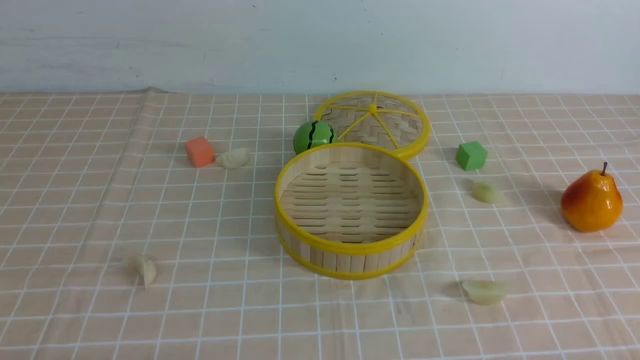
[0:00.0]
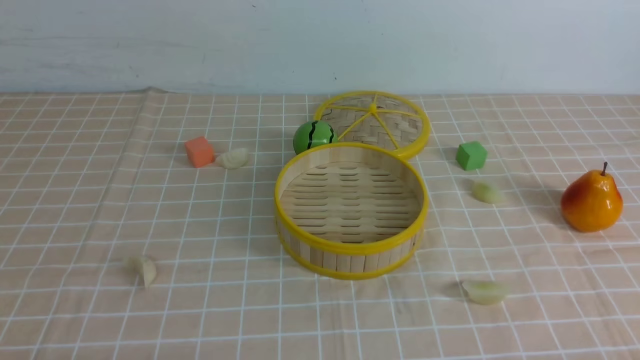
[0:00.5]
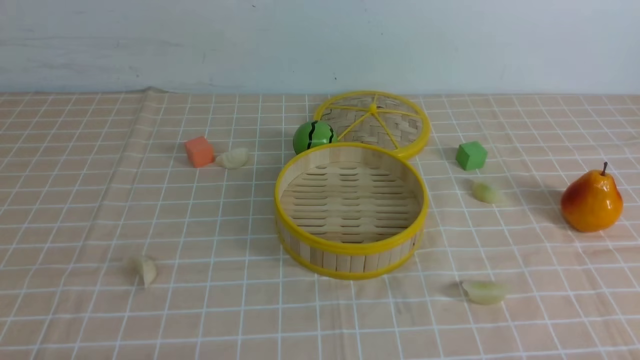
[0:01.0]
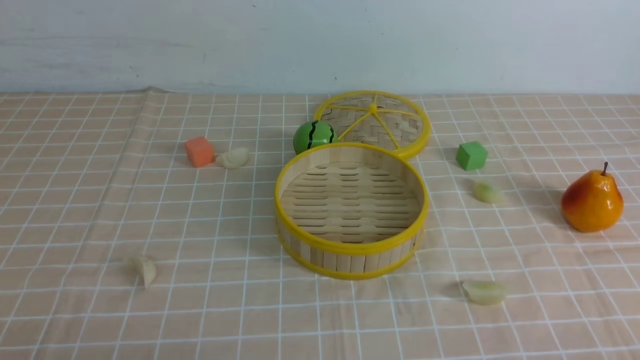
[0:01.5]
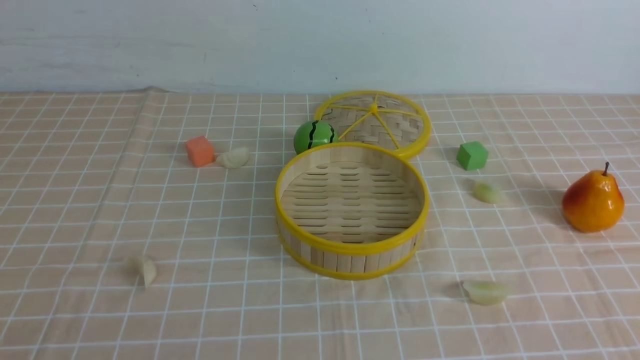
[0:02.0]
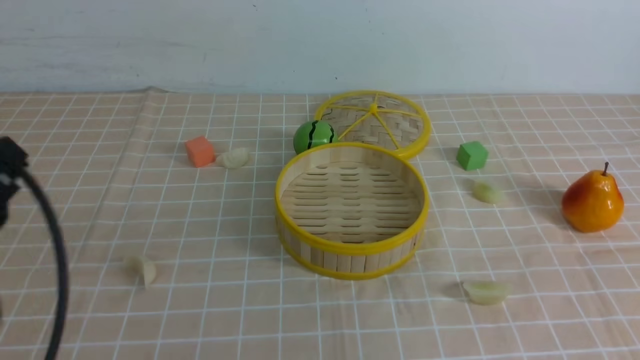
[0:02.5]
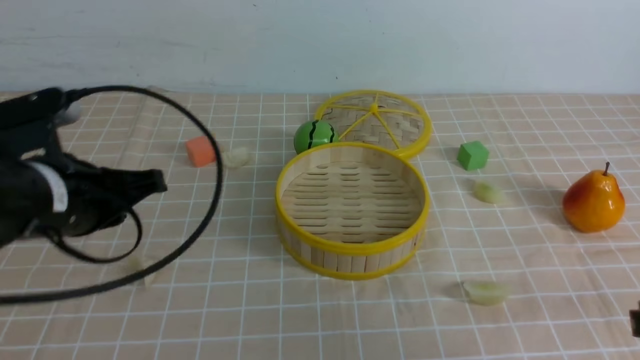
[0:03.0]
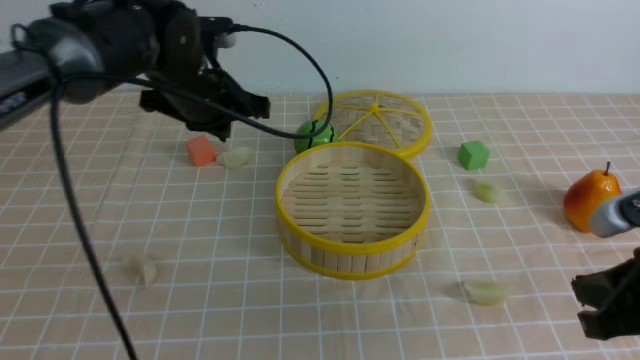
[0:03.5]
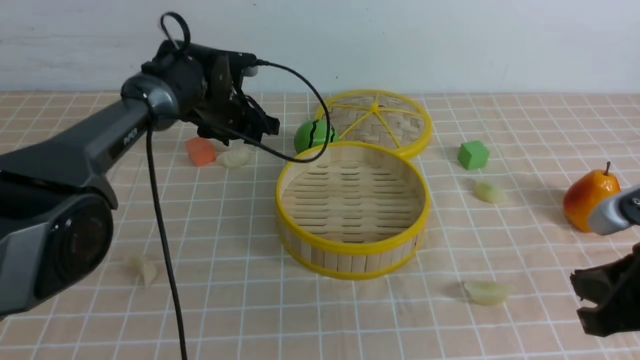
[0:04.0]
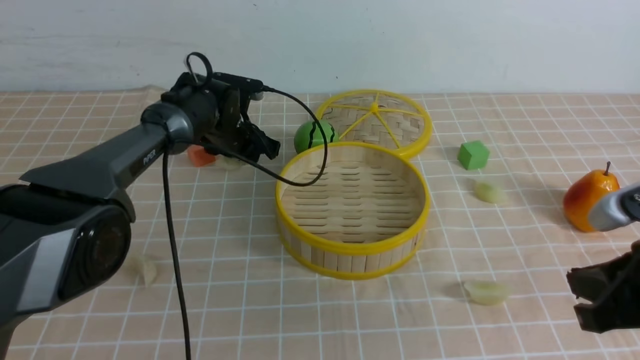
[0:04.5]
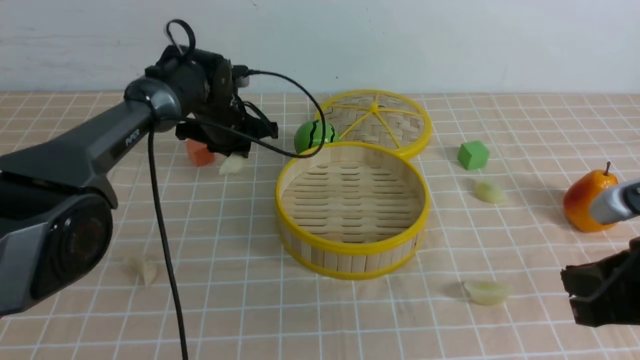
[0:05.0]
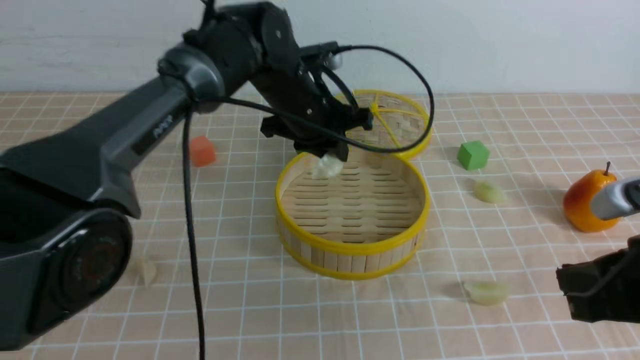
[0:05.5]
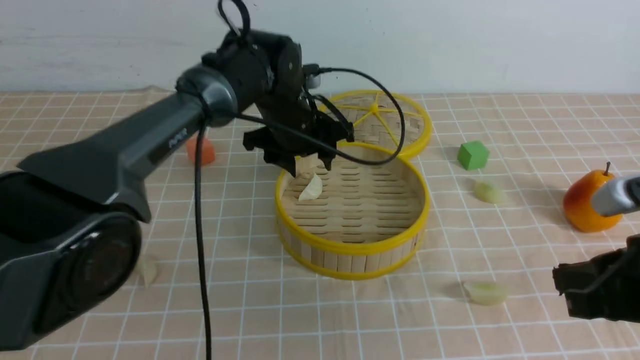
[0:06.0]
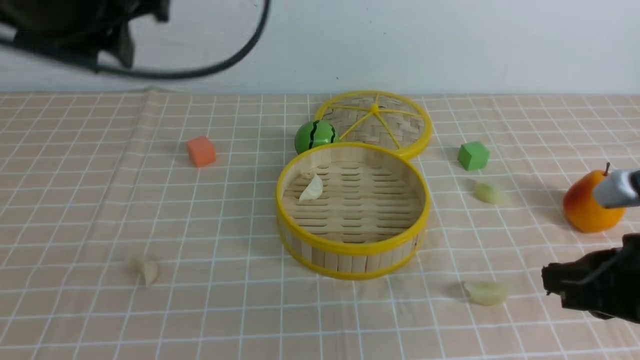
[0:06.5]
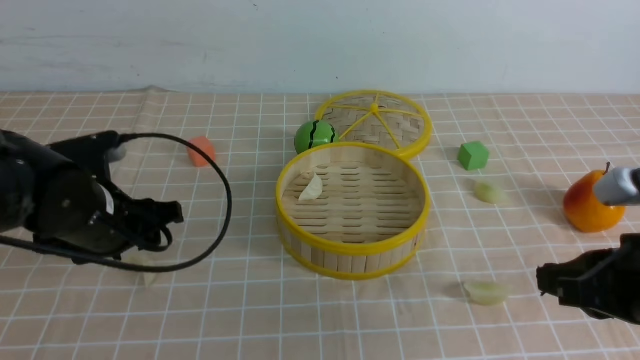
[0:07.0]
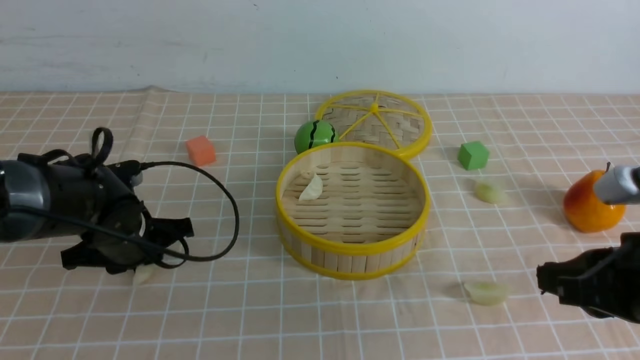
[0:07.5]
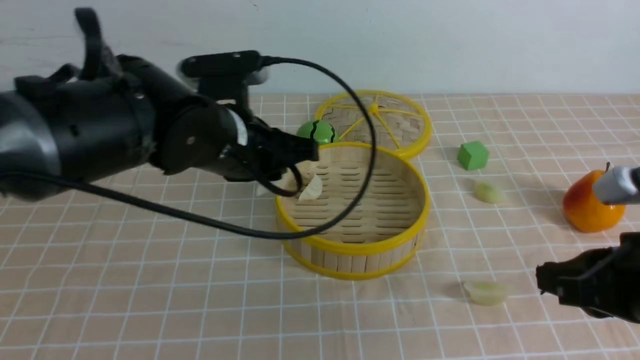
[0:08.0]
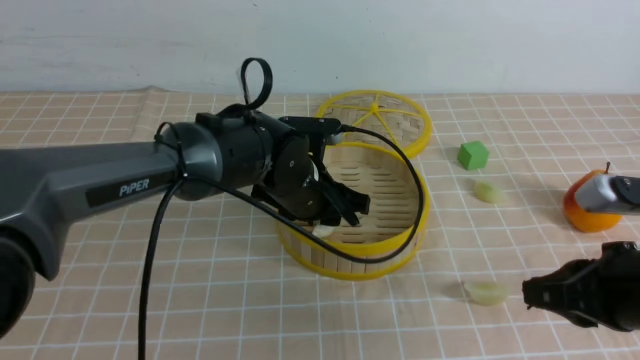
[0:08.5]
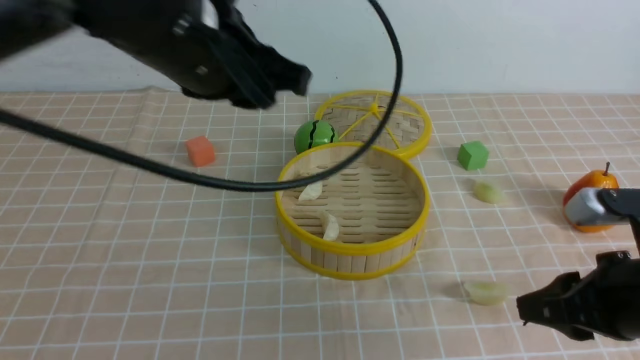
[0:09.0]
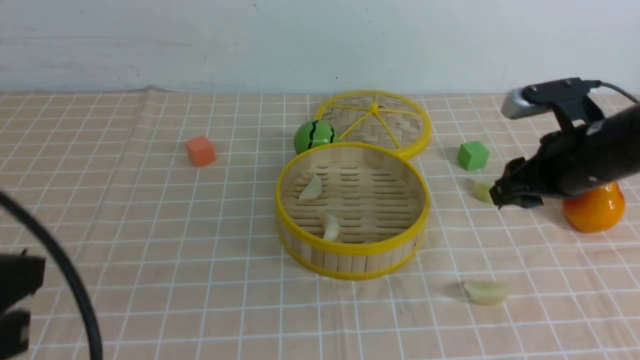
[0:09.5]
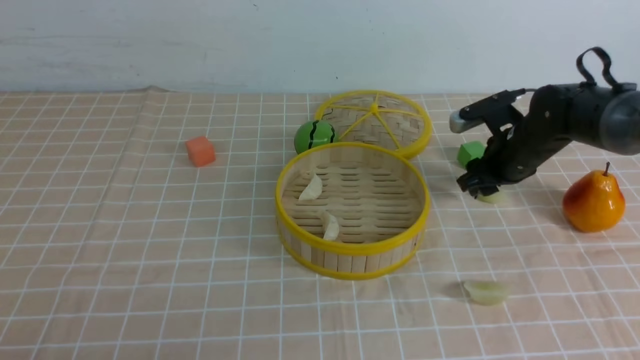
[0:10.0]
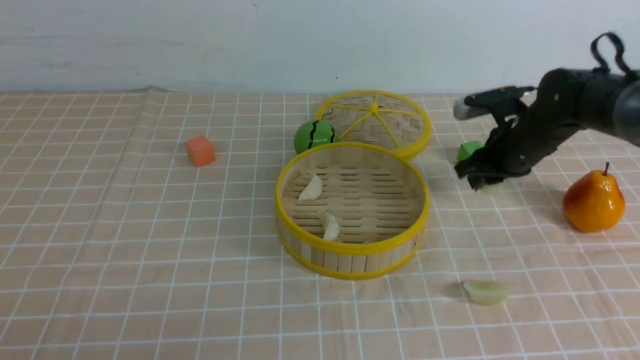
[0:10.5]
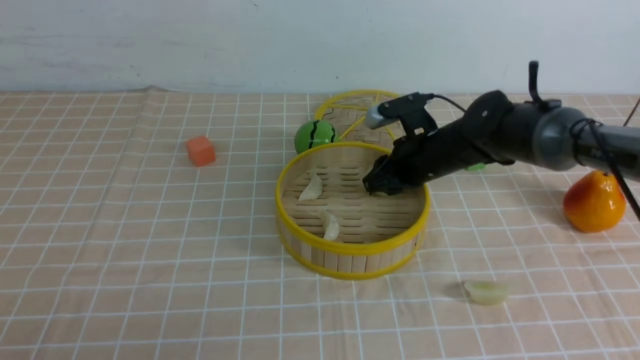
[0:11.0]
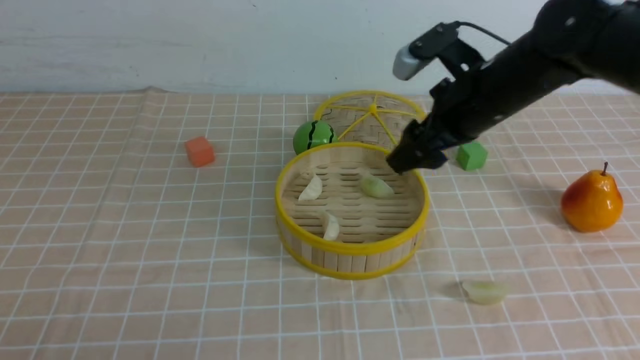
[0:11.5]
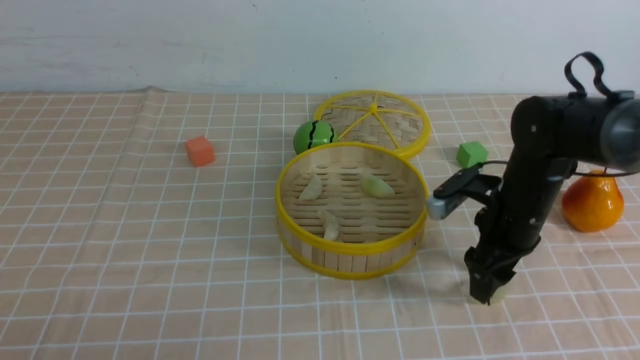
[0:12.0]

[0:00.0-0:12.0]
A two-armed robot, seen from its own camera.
Task of the whole recording: put the dumplings into the steamer on the table with the brown tablecloth.
Step, 0:00.0 to 0:04.5: use the left arm to grab a dumpling.
Step, 0:05.0 to 0:06.0: use the left arm to put the dumpling into the steamer.
Step, 0:06.5 to 0:07.5: use the left arm to grab a dumpling.
Step, 0:08.0 to 0:08.5: use the left arm to put the dumpling into the steamer.
Step, 0:09.0 to 0:10.0: use the right arm to grab a dumpling.
Step, 0:10.5 to 0:11.0: use the right arm to put the dumpling into the steamer.
0:02.0 to 0:04.0: The left gripper is displaced forward by approximately 50 cm, and opens up, while the right gripper moves forward, about 15 cm.
0:04.0 to 0:06.0: The left gripper shifts roughly 15 cm upward, backward and to the right, and closes and opens again.
0:06.0 to 0:08.0: The left gripper goes up and down, roughly 25 cm each way, reversing 2 times, and closes up.
0:08.0 to 0:10.0: The left gripper heads backward and to the left, covering roughly 35 cm, and closes its fingers. Meanwhile the right gripper moves forward, approximately 30 cm, and opens.
0:10.0 to 0:12.0: The right gripper travels backward by roughly 10 cm.

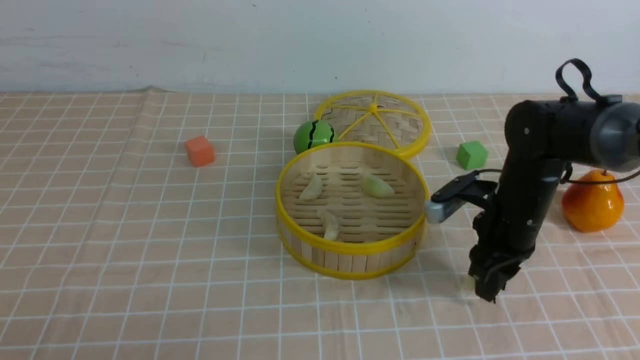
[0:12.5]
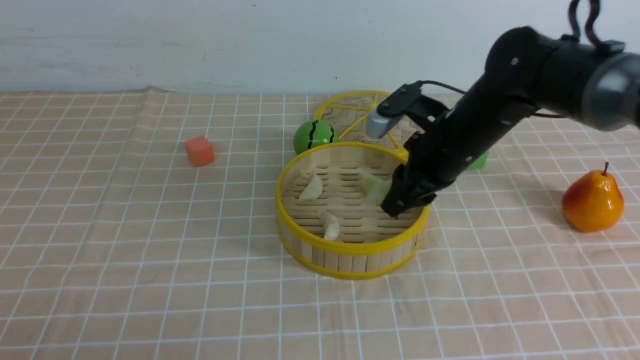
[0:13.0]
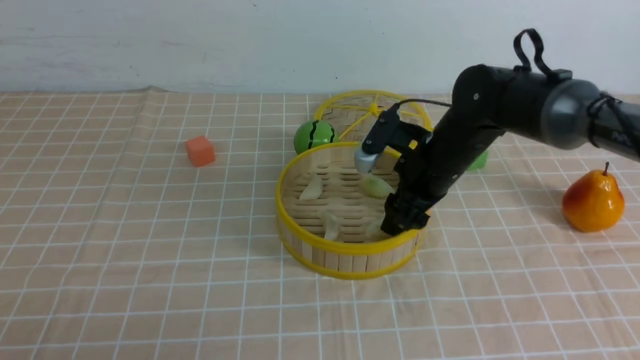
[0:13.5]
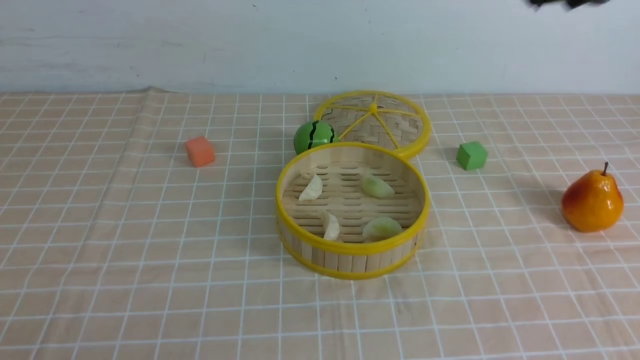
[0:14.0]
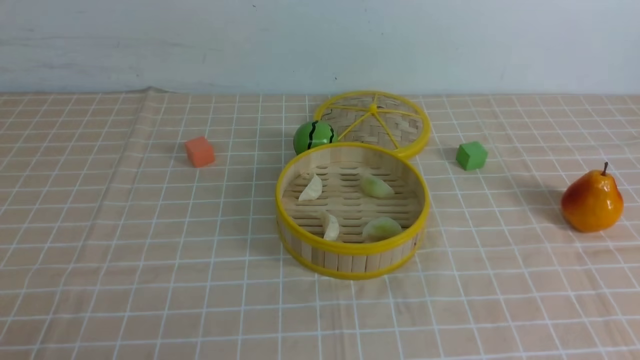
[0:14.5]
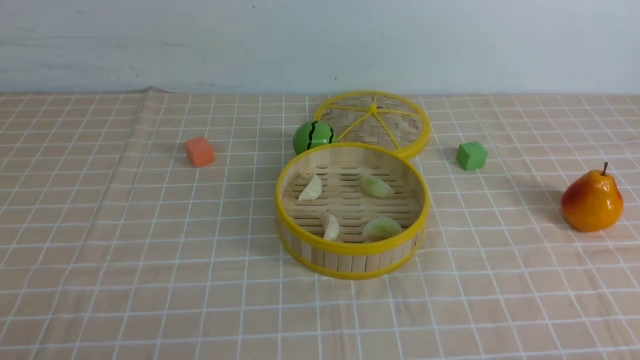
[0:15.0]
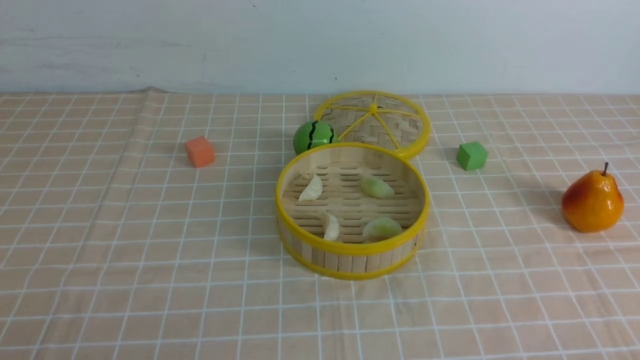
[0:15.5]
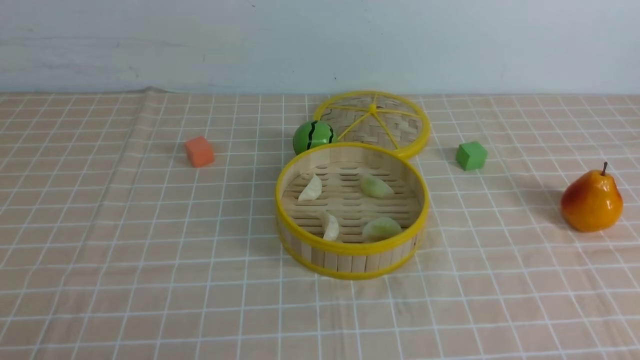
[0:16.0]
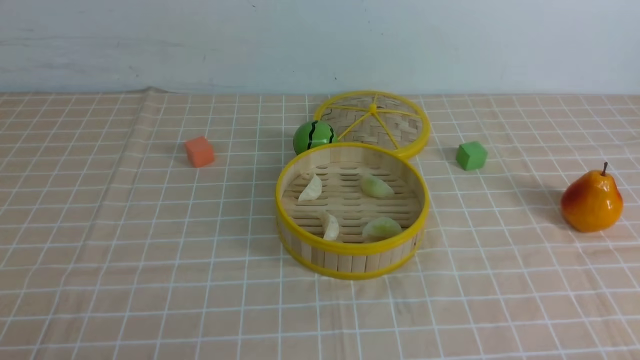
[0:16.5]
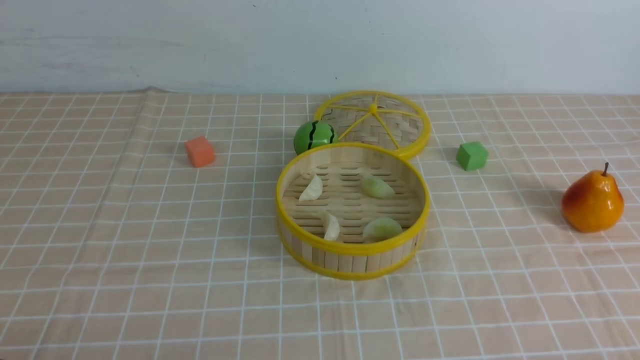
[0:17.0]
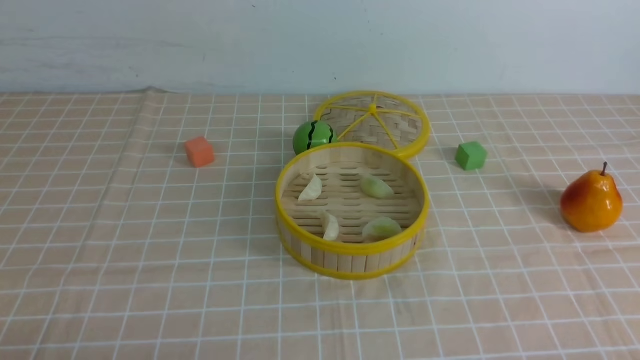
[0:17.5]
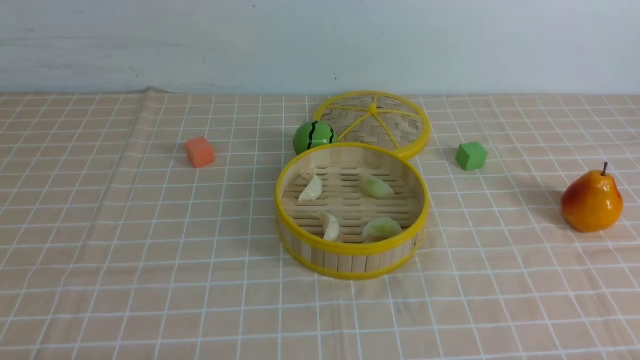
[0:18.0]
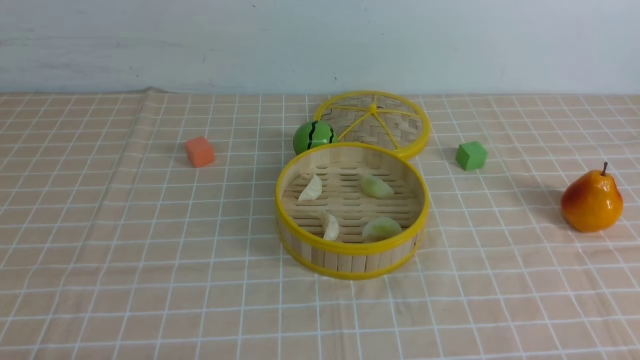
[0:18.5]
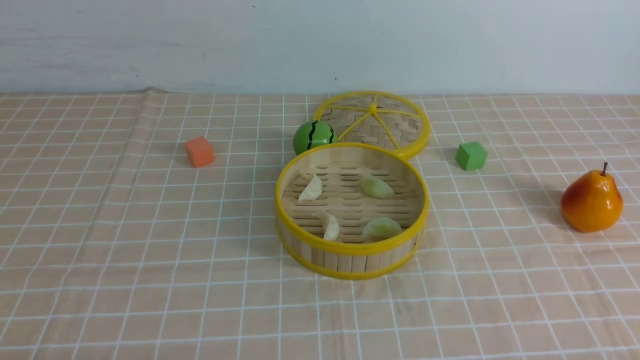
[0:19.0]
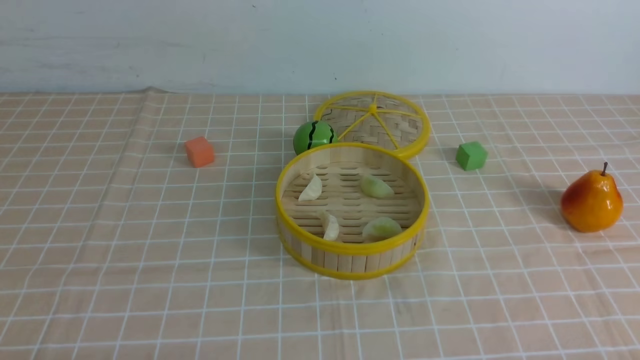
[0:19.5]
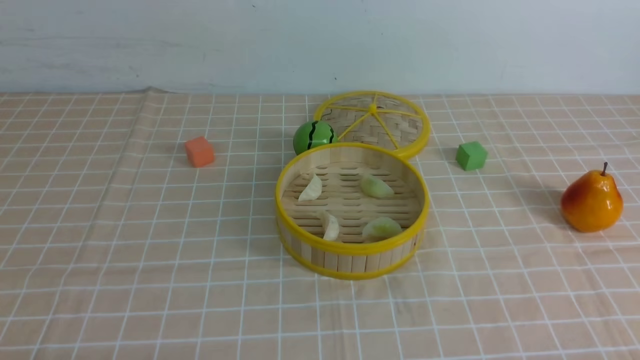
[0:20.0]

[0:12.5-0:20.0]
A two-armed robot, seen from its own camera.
Task of the whole recording: put the dumplings into the steamer on the table with the brown tablecloth.
Step, 0:12.5 to 0:13.5: use the right arm to put the dumpling into the steamer.
0:12.5 to 0:14.5: The right gripper shifts some 35 cm backward and upward, and closes its fingers.
0:18.0 to 0:20.0: Neither gripper changes place.
